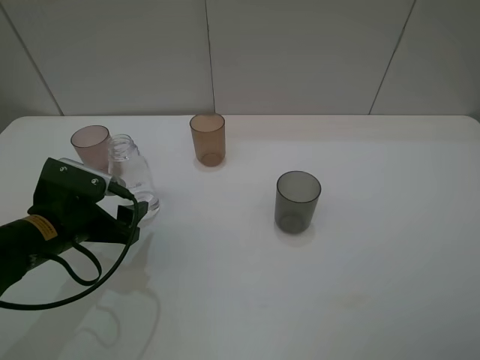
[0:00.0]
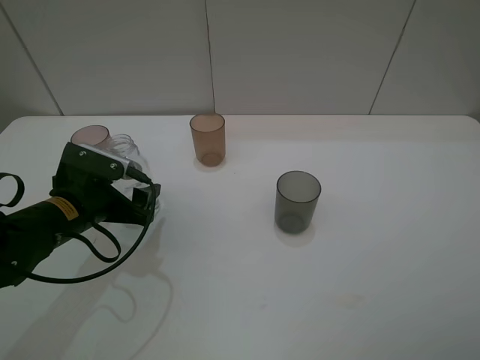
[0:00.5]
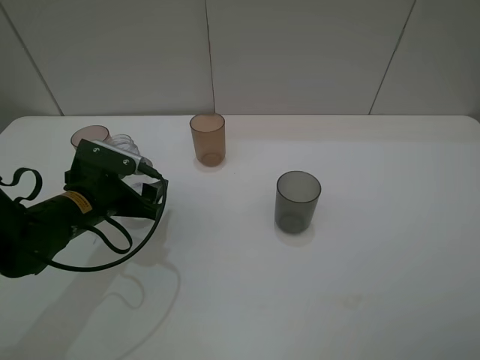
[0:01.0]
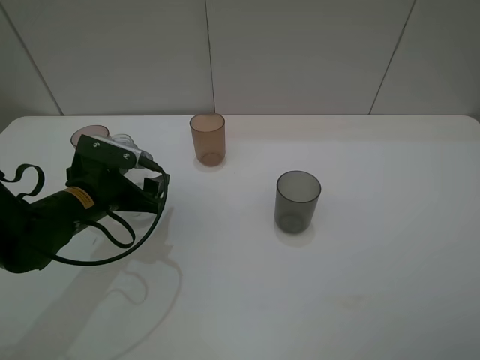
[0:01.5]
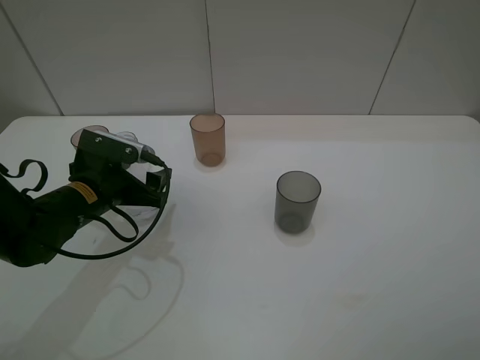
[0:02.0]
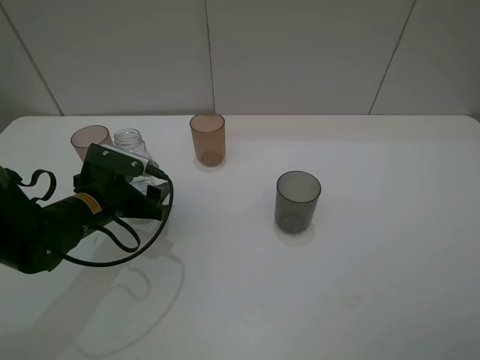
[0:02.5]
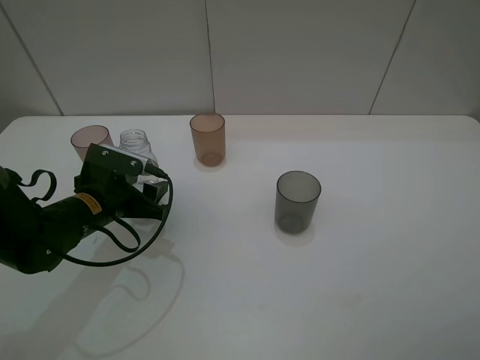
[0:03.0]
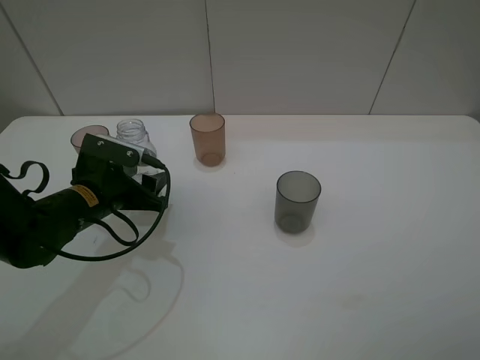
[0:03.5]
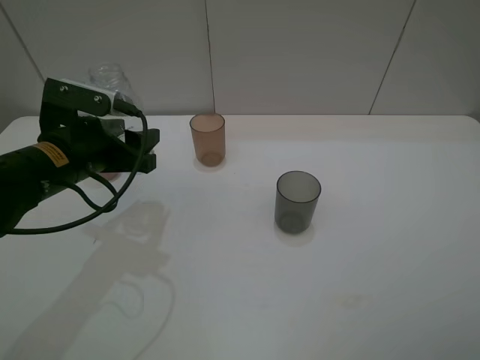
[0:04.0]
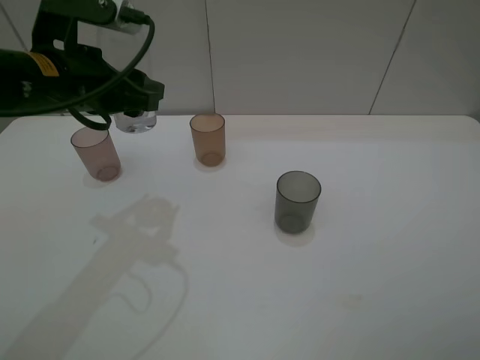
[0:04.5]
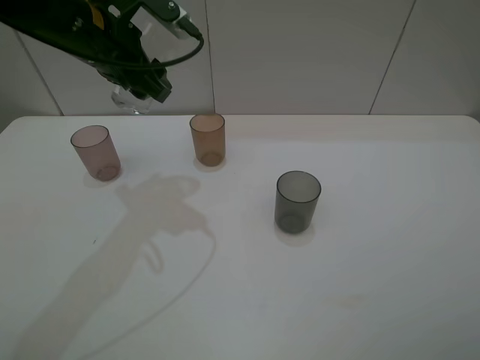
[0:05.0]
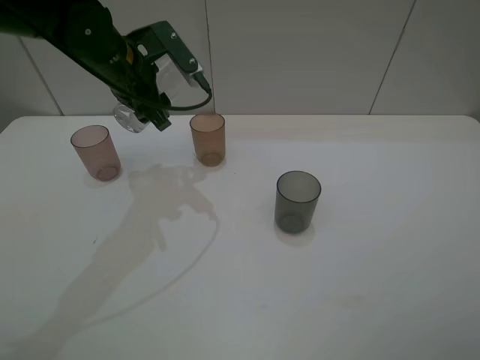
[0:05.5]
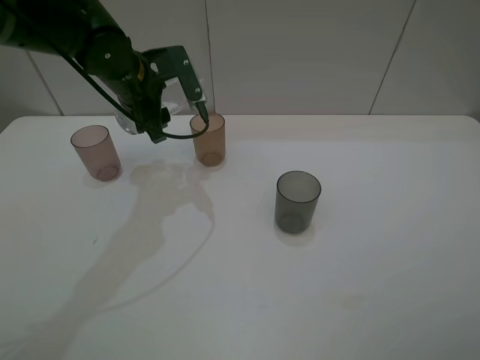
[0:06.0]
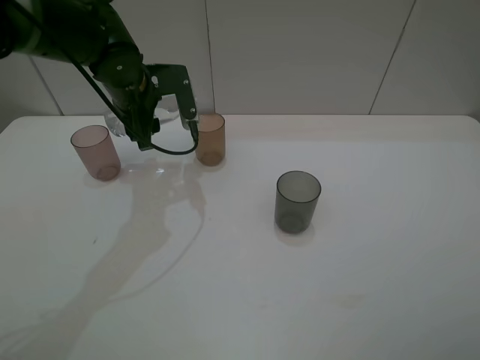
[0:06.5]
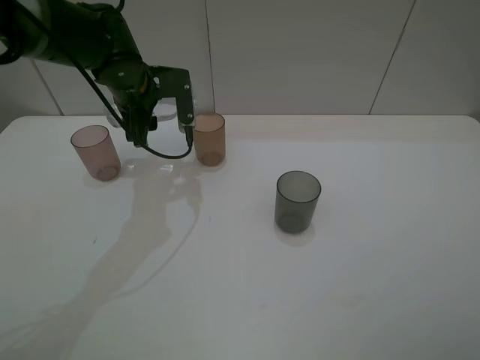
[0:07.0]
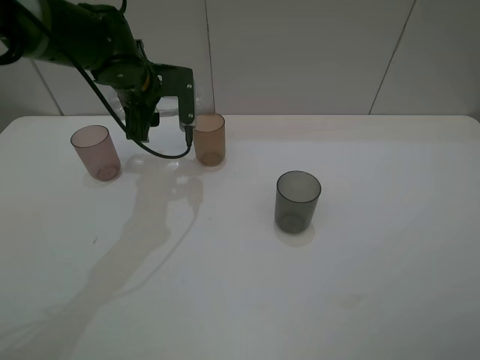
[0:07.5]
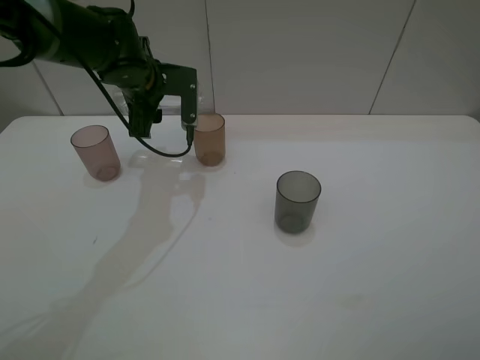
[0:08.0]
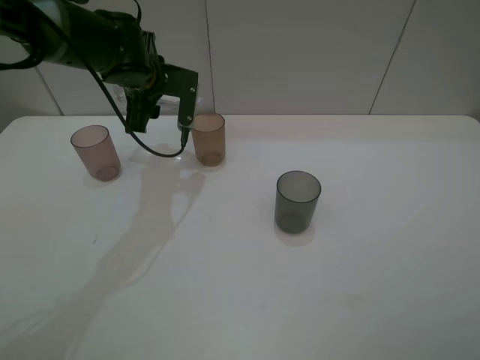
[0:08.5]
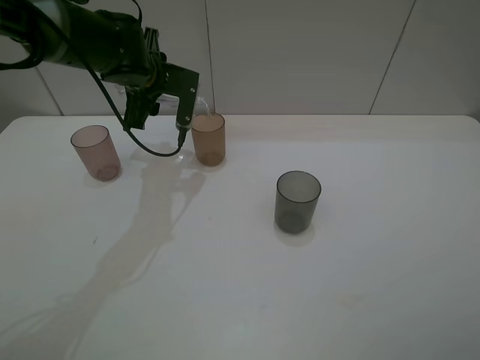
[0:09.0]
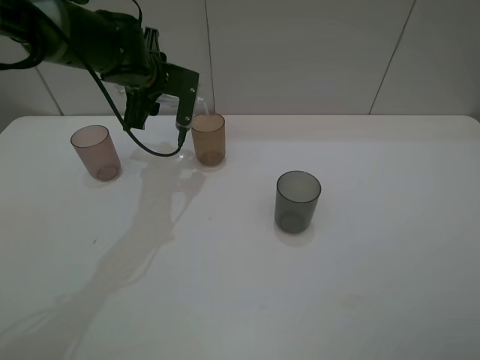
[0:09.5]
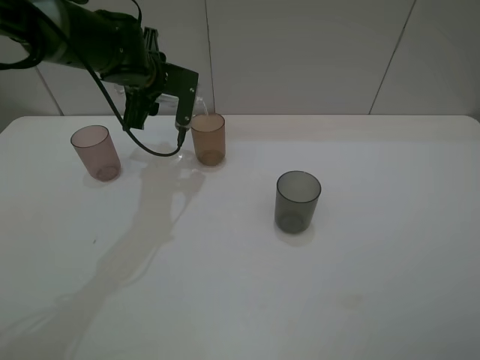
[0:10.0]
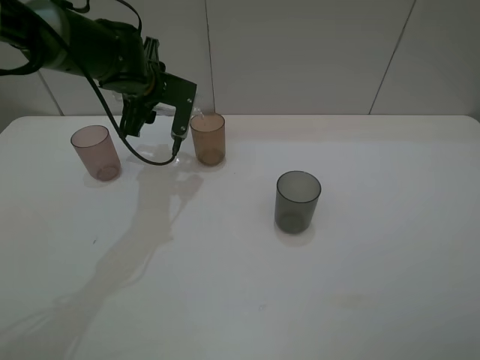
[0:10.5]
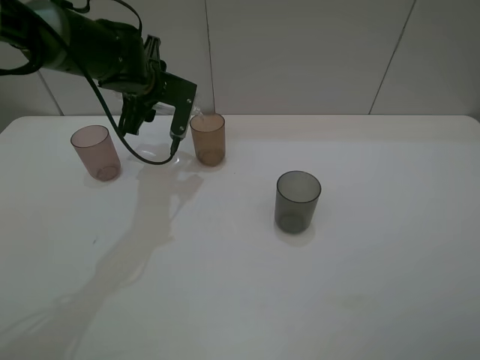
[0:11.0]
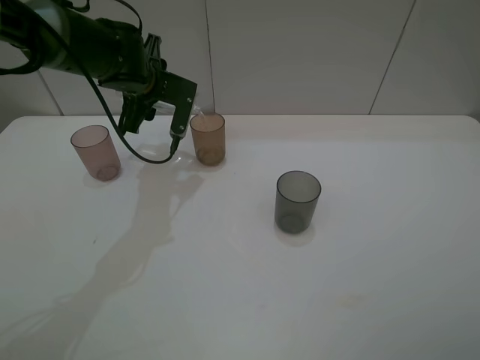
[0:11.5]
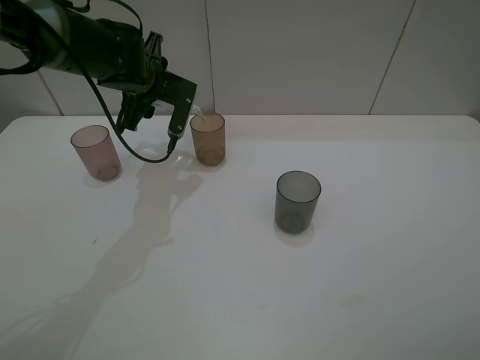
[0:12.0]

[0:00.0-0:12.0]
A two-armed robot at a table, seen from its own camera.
Task of the whole recording: pick up the bottle filled with water and pour water into the middle cup of the three cups.
Step, 0:00.0 to 0:02.5: Grasp the transparent bottle with the left gripper.
0:00.0 to 0:02.0: The left gripper goes roughly 5 cm forward.
0:02.0 to 0:04.0: The left gripper travels upward by about 10 cm, and closes its fingers.
0:04.0 to 0:06.0: The left gripper travels forward and to the right by about 15 cm.
0:08.0 to 0:12.0: The grippers move only a little.

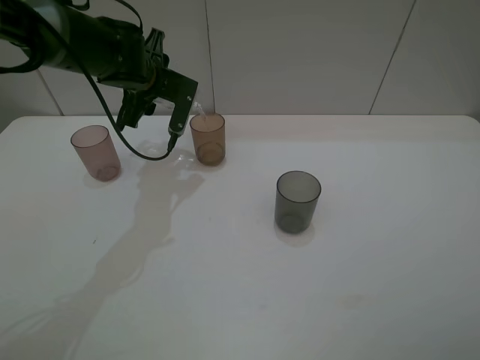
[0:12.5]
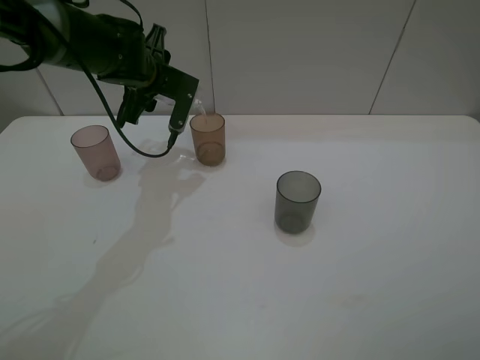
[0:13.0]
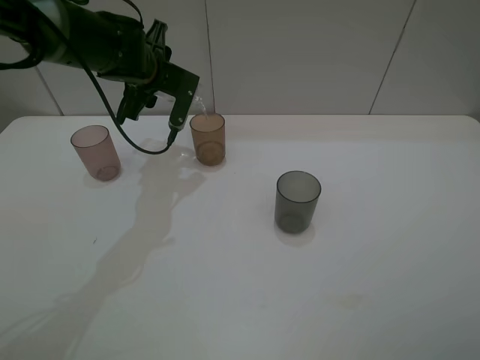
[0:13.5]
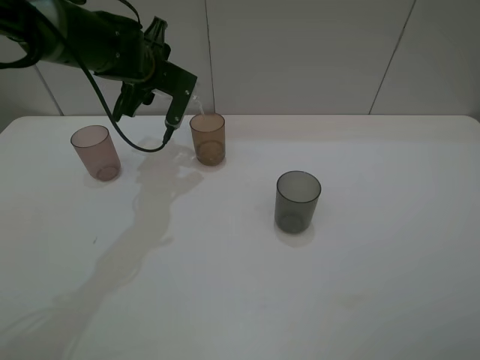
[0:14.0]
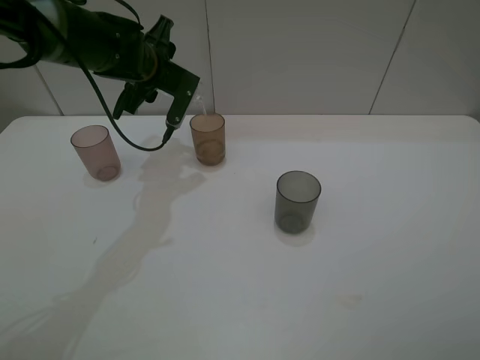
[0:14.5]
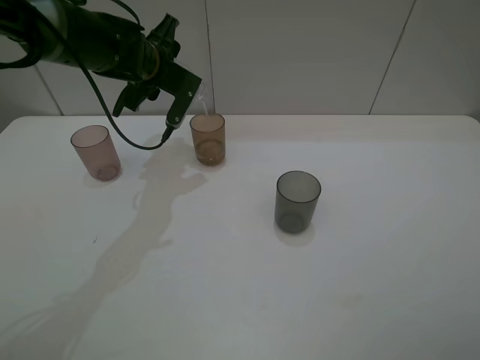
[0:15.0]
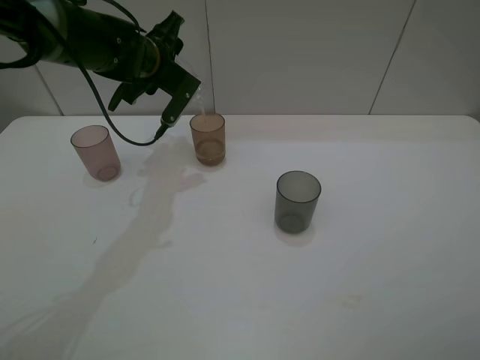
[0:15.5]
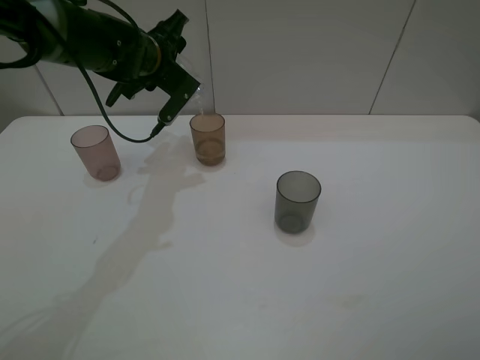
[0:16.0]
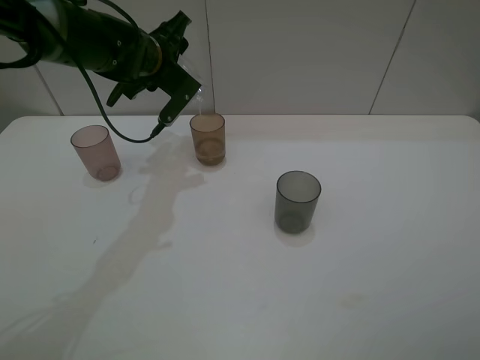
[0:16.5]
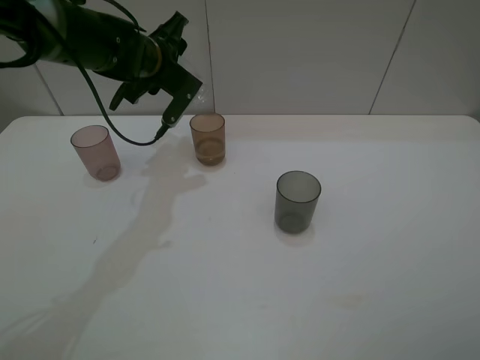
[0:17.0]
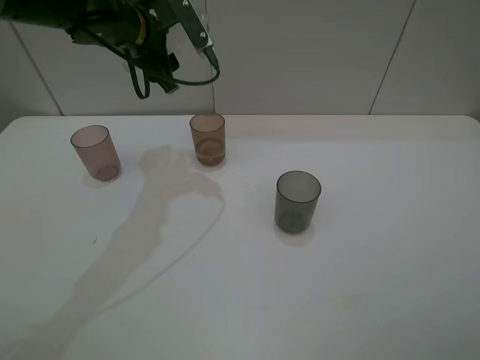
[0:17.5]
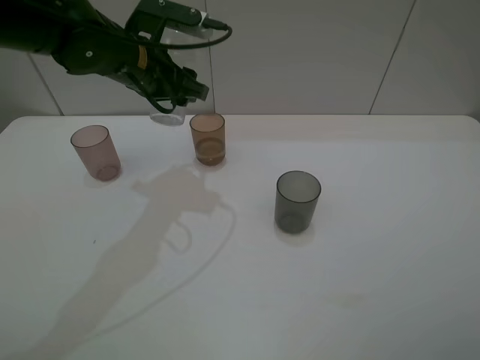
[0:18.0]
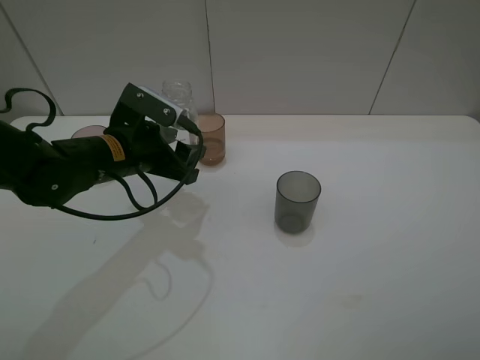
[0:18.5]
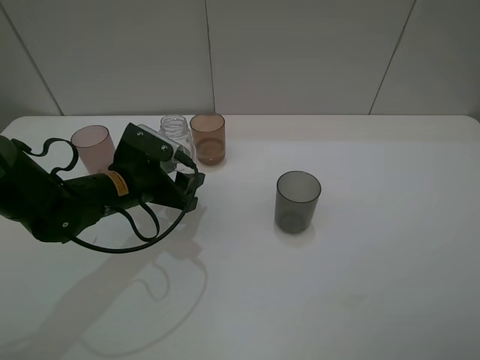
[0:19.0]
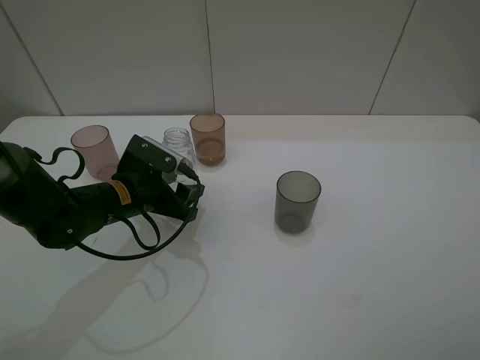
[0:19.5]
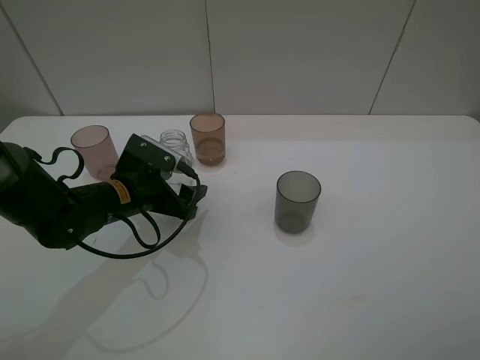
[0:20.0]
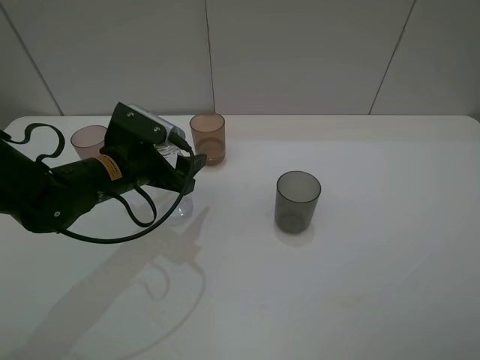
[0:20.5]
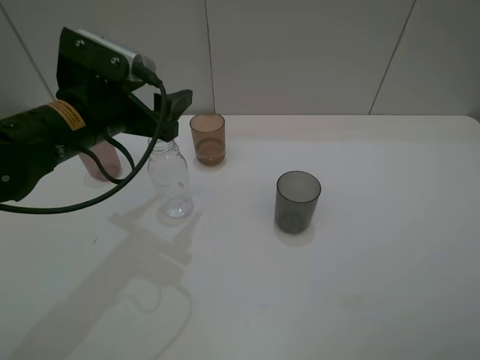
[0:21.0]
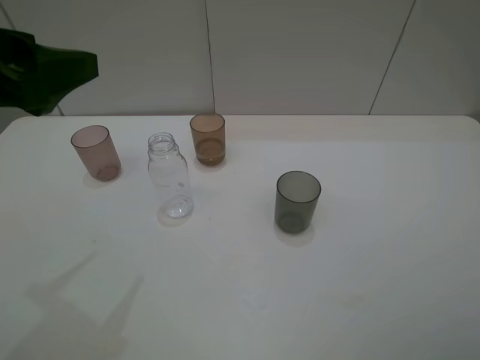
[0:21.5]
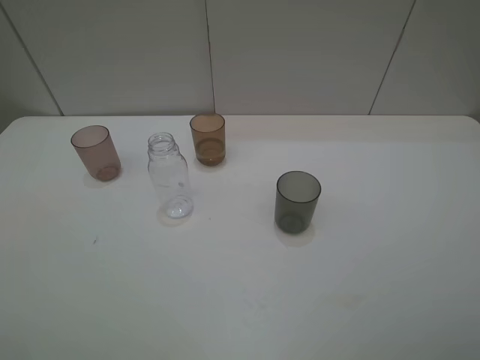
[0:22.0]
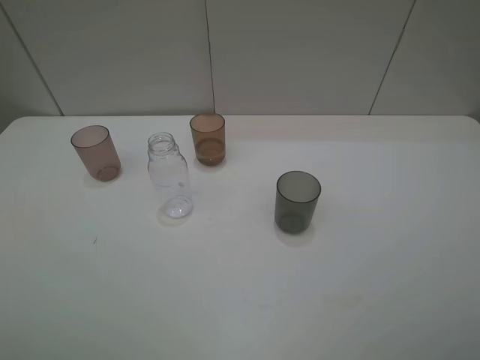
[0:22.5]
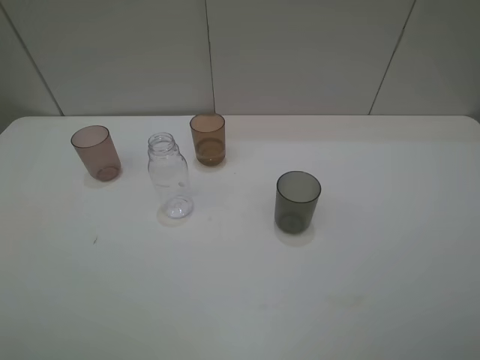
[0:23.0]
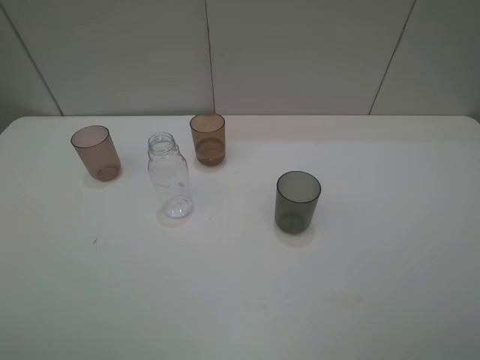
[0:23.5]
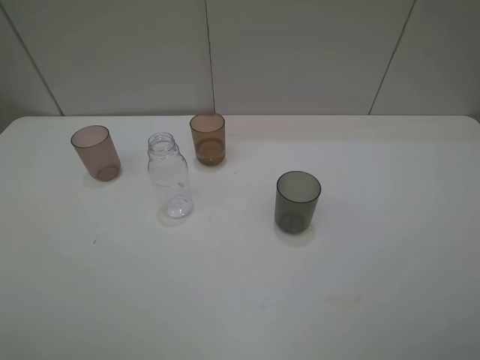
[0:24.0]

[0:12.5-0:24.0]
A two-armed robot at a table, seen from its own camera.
Task of the whole recording: pick up the bottle filled with water and pour water into the middle cup of the three cups.
Step, 0:12.5 to 0:18.0: Pour water from transparent bottle to brown cup with the left gripper.
Step, 0:18.5 to 0:20.5: Place the transparent bottle with the left gripper.
0:12.5 to 0:14.5: The grippers make only small movements.
0:14.5 to 0:16.5: The grippers make only small movements.
0:16.5 to 0:18.5: The left gripper goes approximately 15 cm backward.
0:18.5 to 0:20.0: The left gripper moves downward, approximately 5 cm, and opens.
0:20.0 to 0:22.0: The left gripper shifts some 35 cm upward, backward and to the left.
